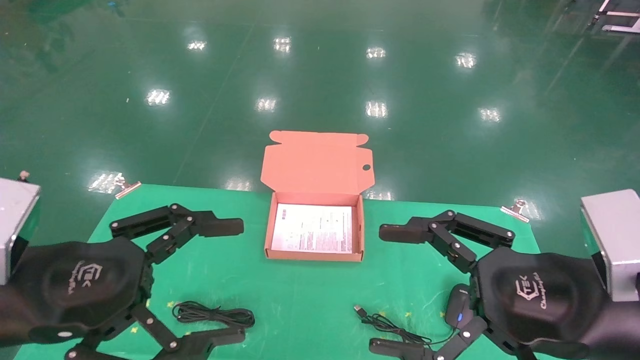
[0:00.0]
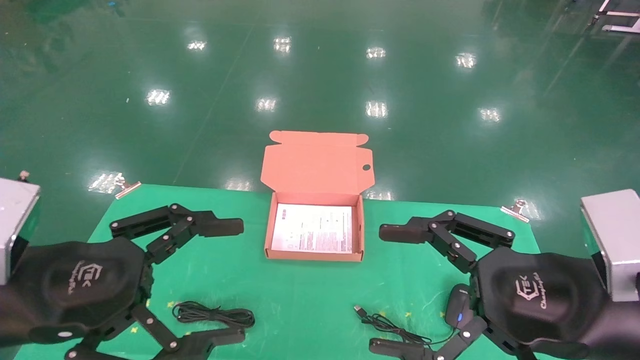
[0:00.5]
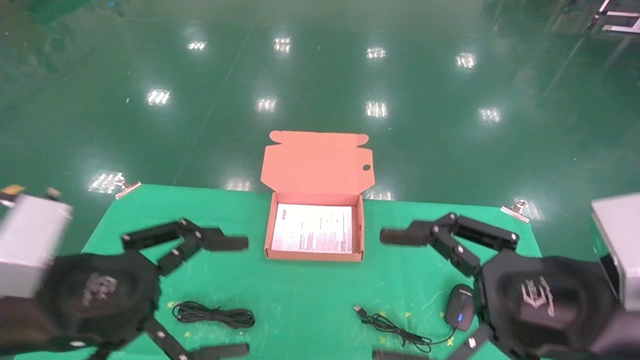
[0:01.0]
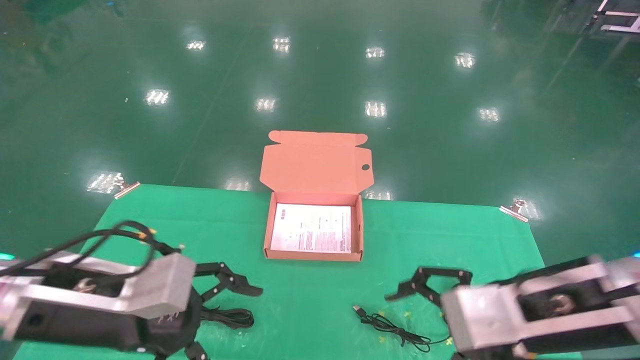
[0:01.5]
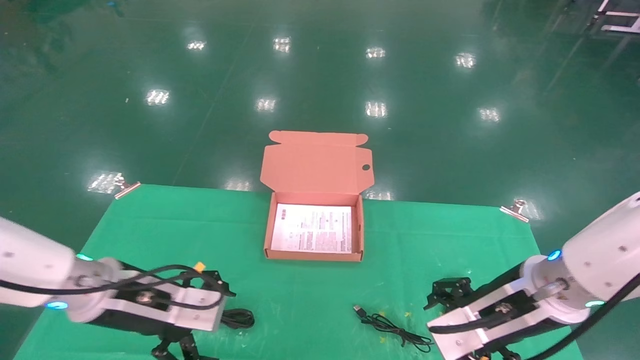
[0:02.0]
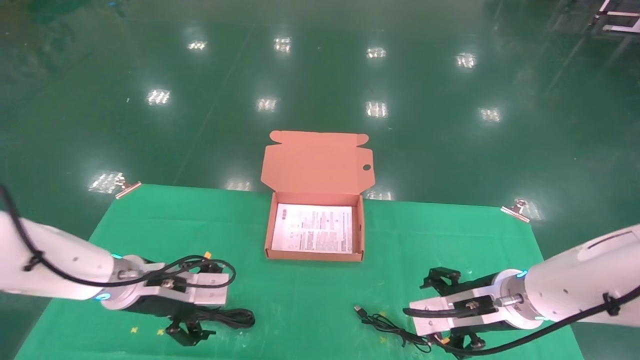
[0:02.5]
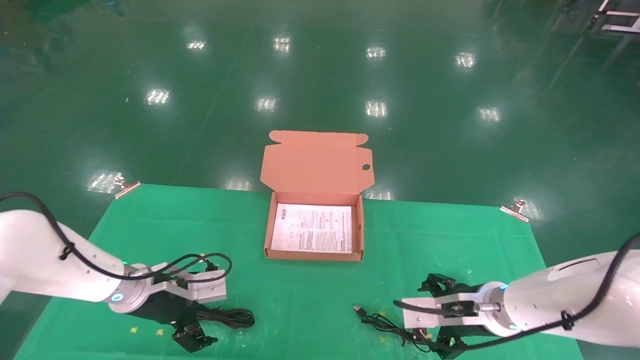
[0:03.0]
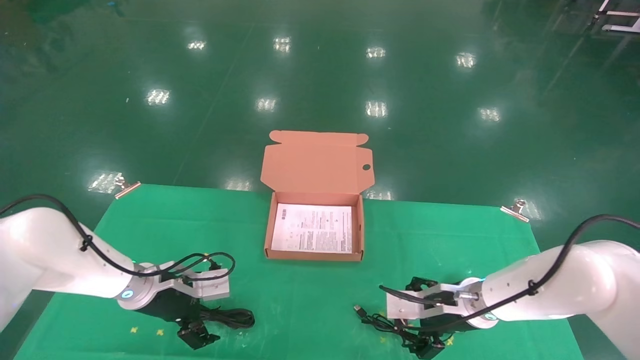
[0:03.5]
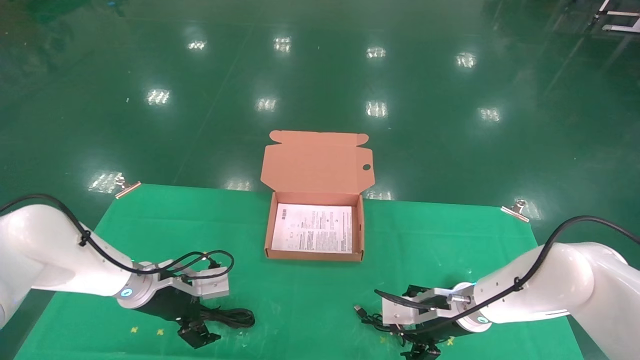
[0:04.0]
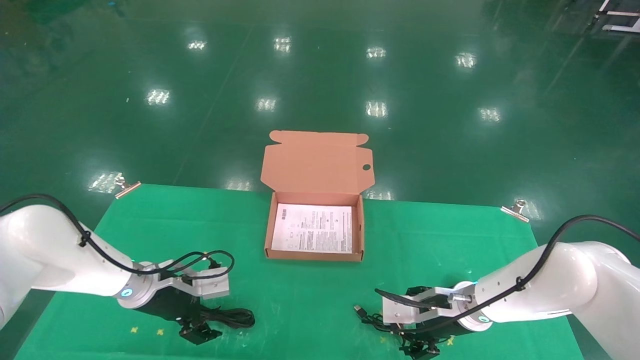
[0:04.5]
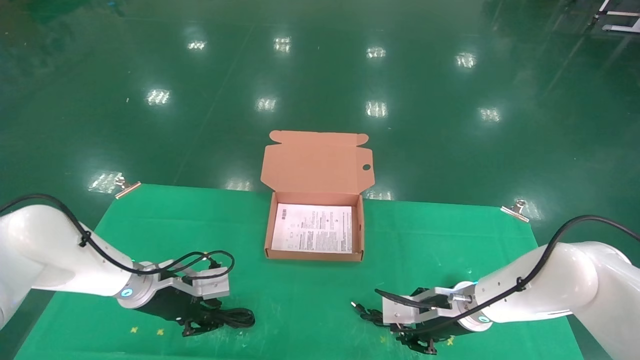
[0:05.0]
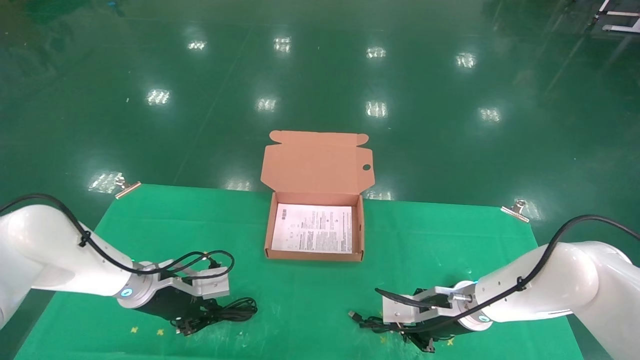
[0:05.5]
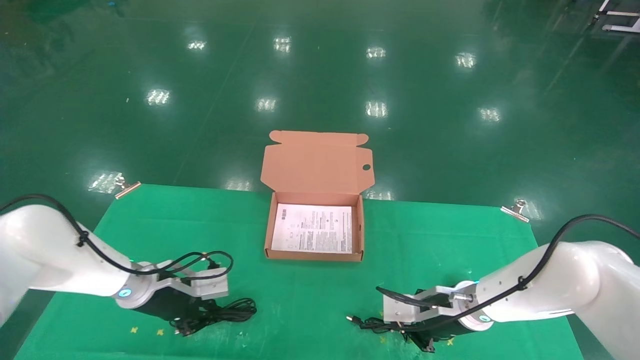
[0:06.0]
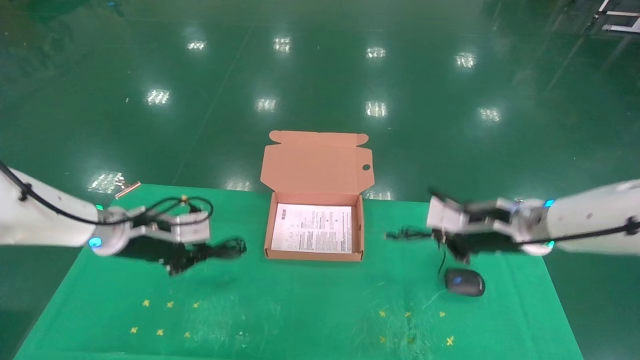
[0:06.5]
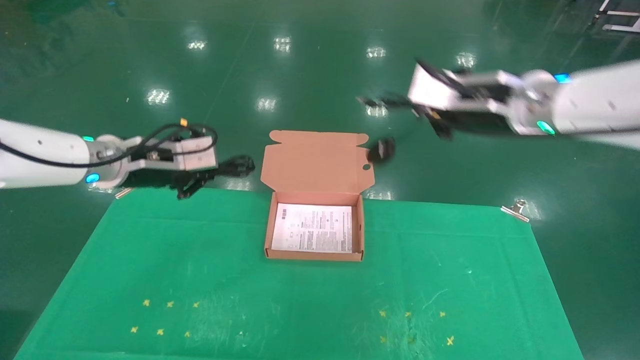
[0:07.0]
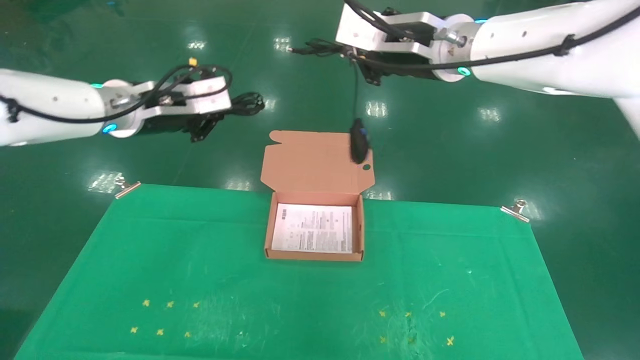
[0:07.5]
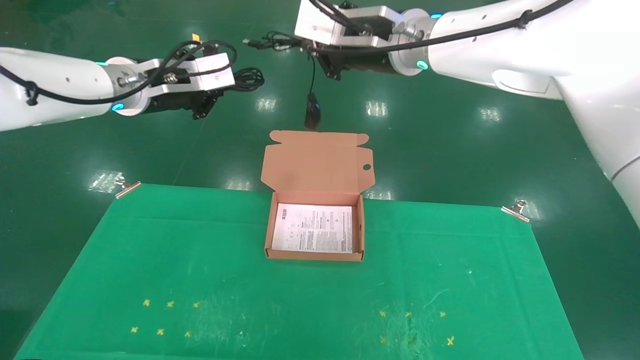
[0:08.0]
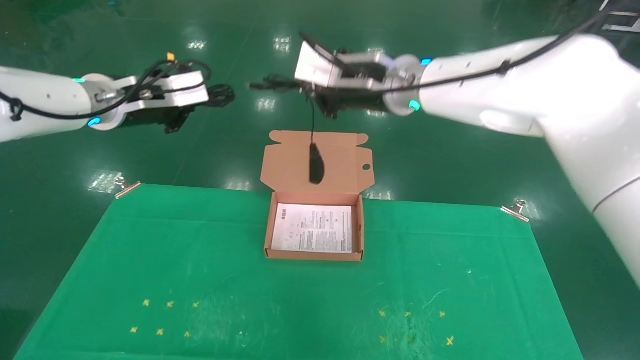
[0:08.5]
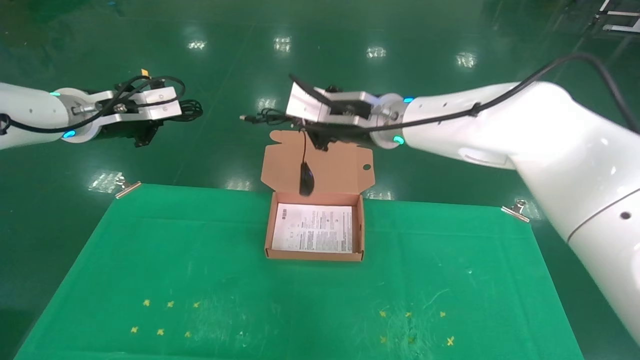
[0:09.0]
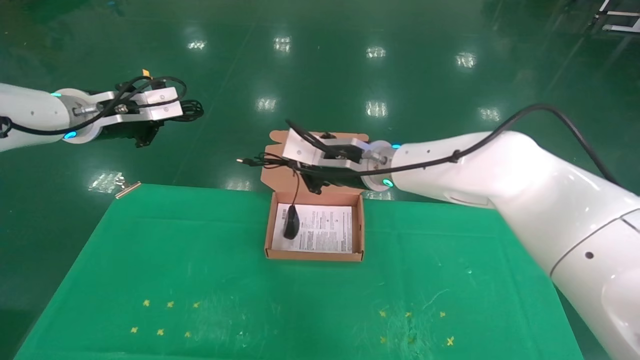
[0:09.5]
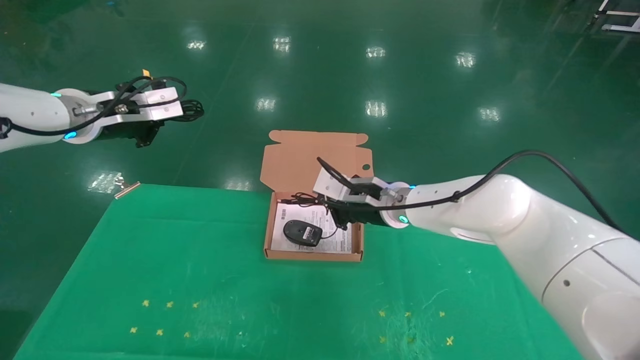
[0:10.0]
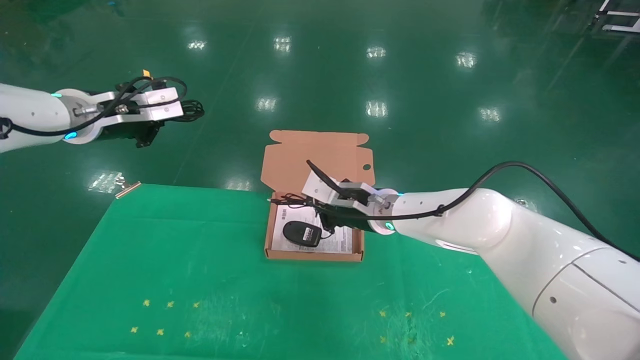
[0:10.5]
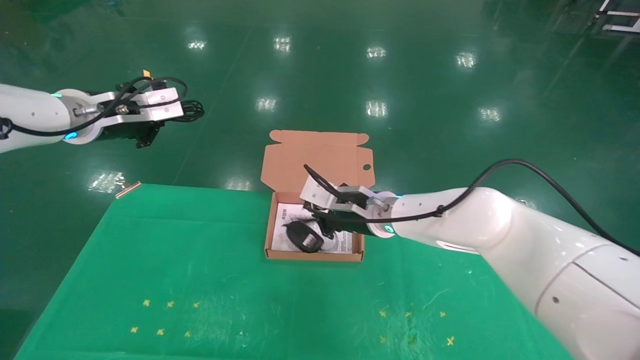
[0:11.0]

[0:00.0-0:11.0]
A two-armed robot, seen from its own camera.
Task of the whole recording: grasp data cable left put into box grasp mouse right put into box.
Step, 0:01.5 to 0:06.5: Grab and pick up both the mouse and power cord from the accessory packaging area at the same time.
0:00.0 to 0:02.0: Both grippers move forward and downward, some 15 cm.
0:02.0 to 0:03.5: The grippers both shift forward and downward by roughly 15 cm.
0:03.5 to 0:05.5: The right gripper closes its fingers, while the left gripper closes its fingers.
0:05.5 to 0:07.5: Both grippers travel together upward, some 30 cm.
0:07.5 to 0:09.0: The left gripper shifts roughly 5 cm to the left, while the right gripper is displaced downward and to the left by some 10 cm.
0:09.0 to 0:11.0: The right gripper is displaced downward by about 15 cm.

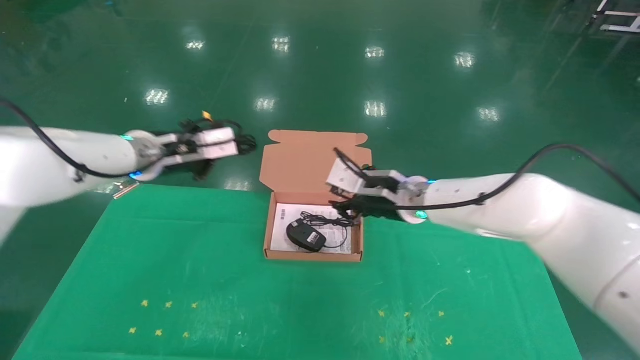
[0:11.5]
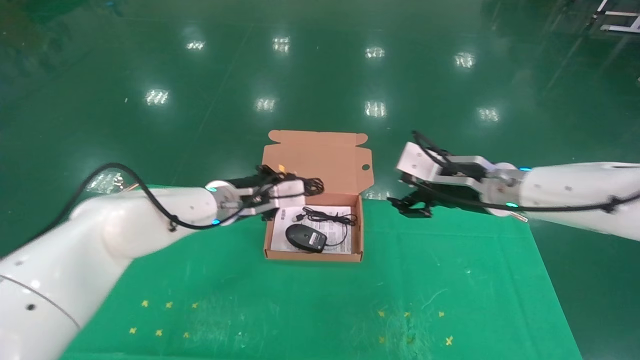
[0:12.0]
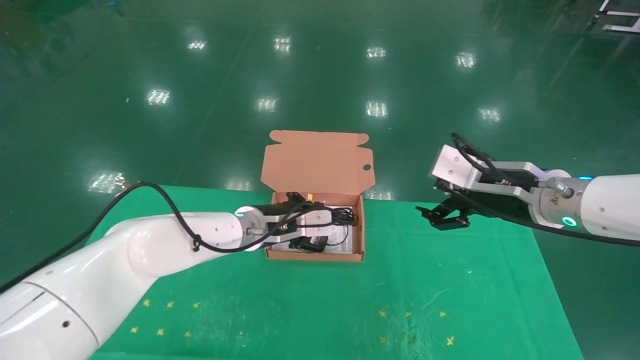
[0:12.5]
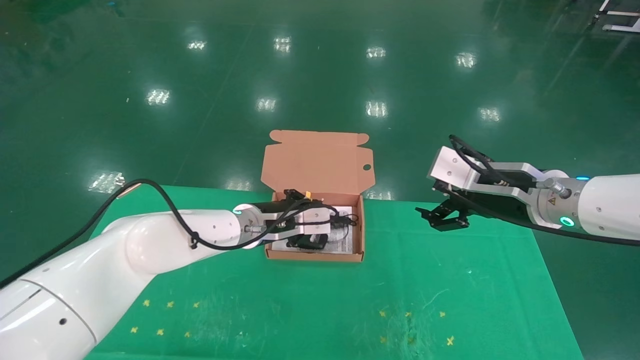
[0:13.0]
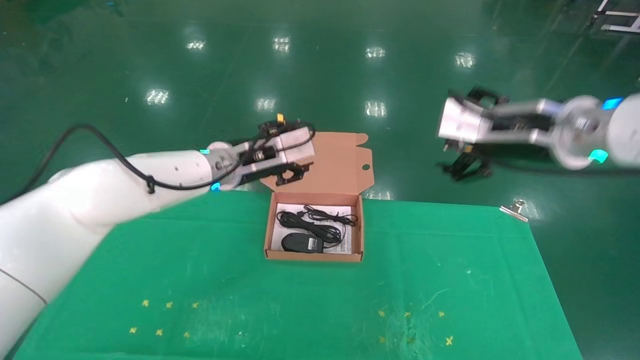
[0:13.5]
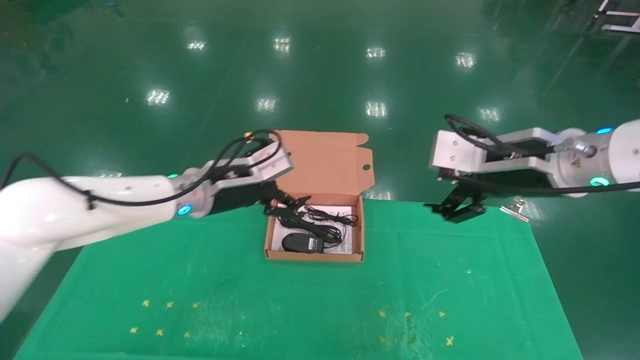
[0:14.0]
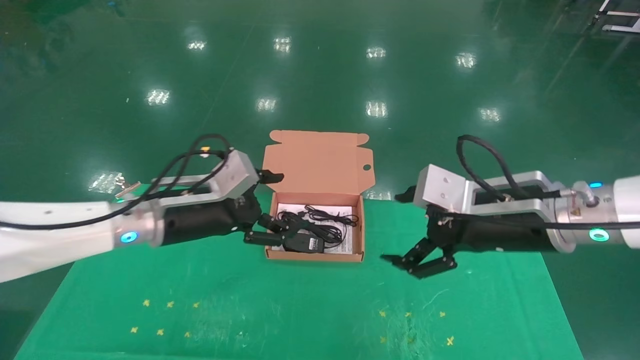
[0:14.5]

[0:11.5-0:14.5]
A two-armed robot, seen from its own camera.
Task of the whole recording: grasp data cable left put into box grasp mouse right put into box.
0:11.5 to 0:13.0: The left gripper is displaced to the right and downward by roughly 20 cm. The right gripper moves to the right, backward and upward, some 15 cm, and opens up.
0:13.0 to 0:14.5: The right gripper moves about 5 cm; the left gripper shifts approximately 10 cm to the left and backward, and opens up.
